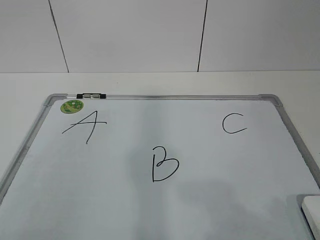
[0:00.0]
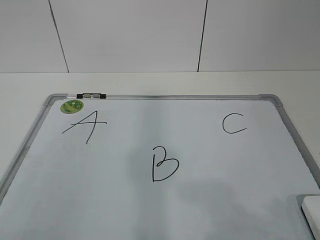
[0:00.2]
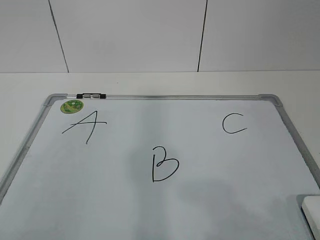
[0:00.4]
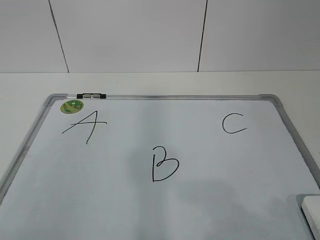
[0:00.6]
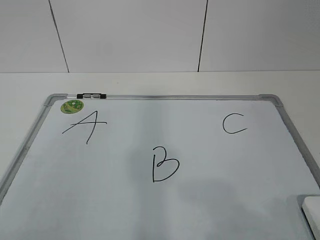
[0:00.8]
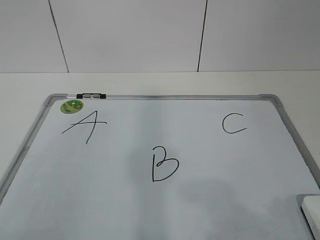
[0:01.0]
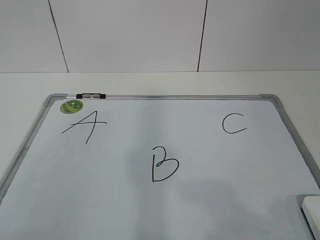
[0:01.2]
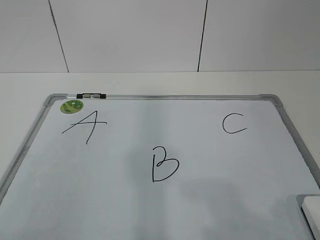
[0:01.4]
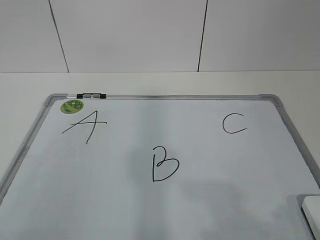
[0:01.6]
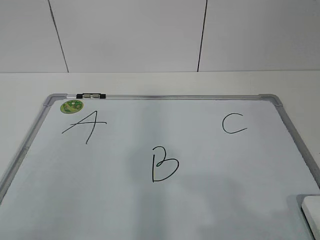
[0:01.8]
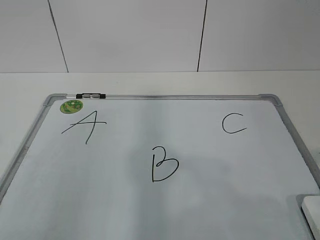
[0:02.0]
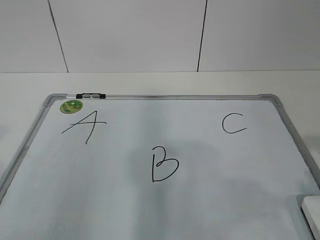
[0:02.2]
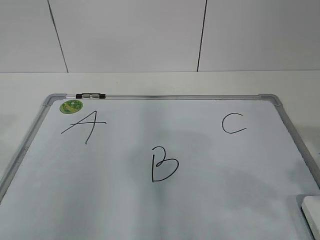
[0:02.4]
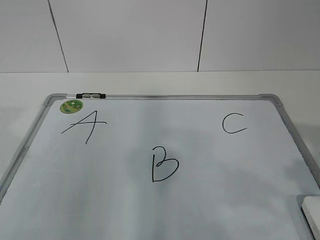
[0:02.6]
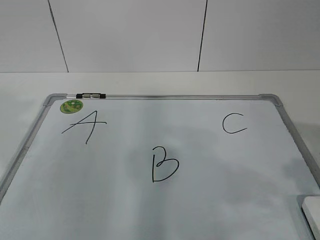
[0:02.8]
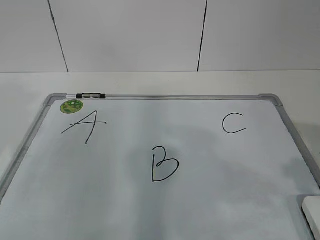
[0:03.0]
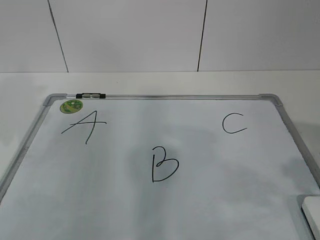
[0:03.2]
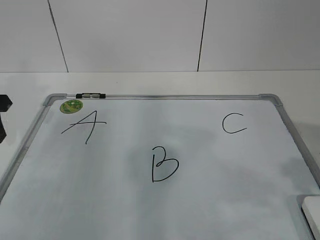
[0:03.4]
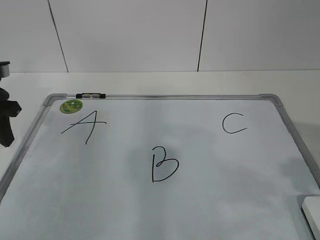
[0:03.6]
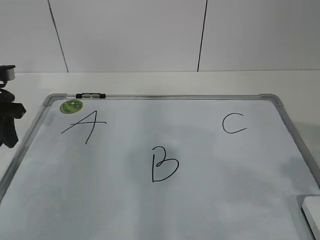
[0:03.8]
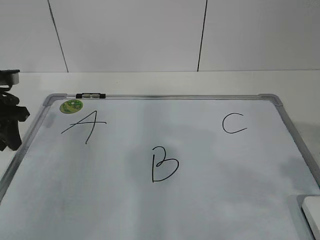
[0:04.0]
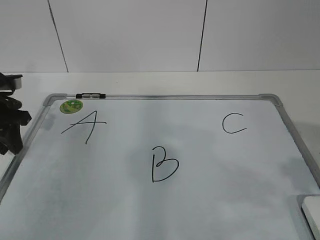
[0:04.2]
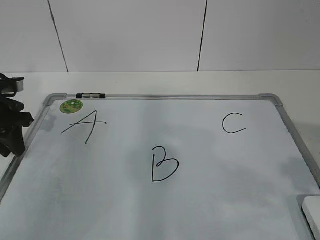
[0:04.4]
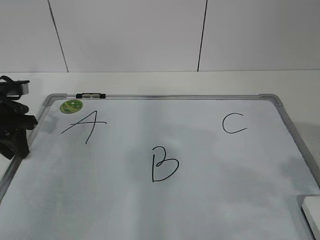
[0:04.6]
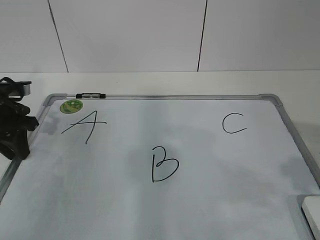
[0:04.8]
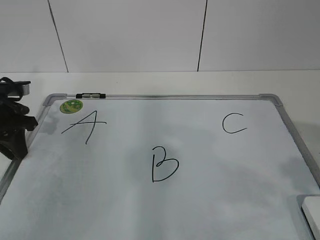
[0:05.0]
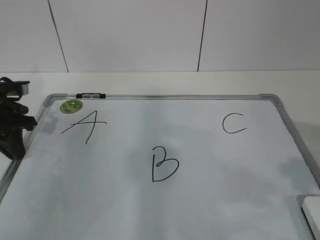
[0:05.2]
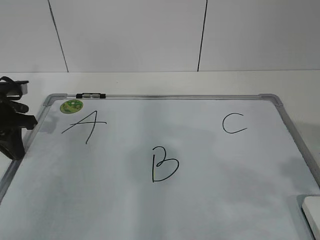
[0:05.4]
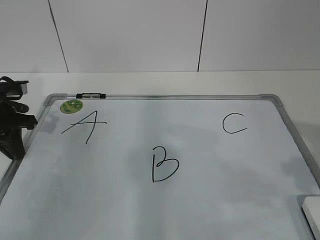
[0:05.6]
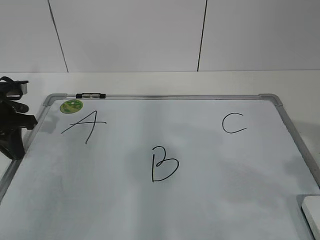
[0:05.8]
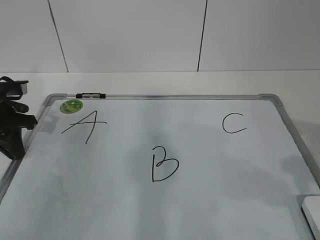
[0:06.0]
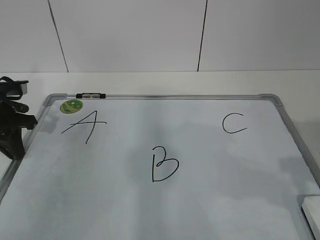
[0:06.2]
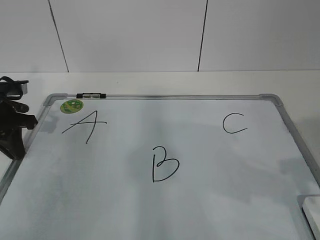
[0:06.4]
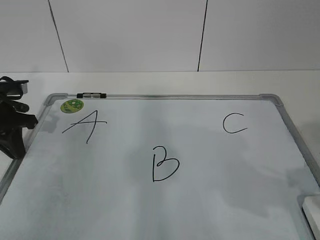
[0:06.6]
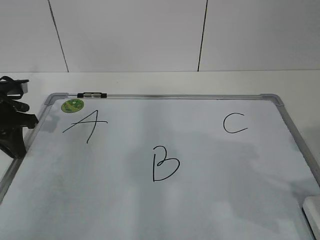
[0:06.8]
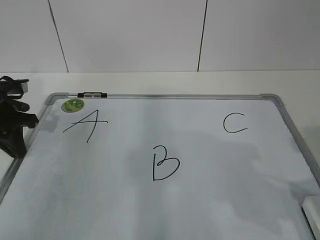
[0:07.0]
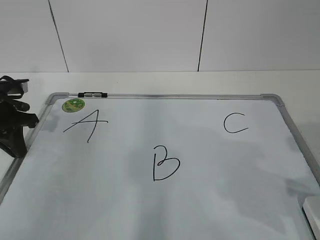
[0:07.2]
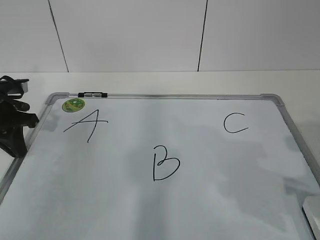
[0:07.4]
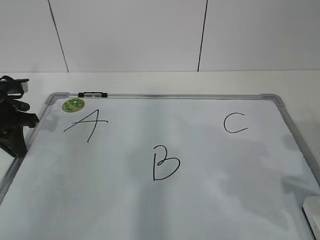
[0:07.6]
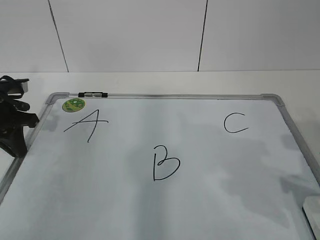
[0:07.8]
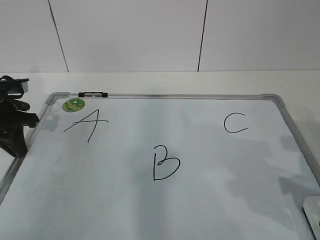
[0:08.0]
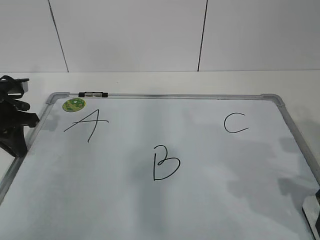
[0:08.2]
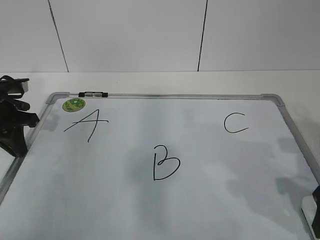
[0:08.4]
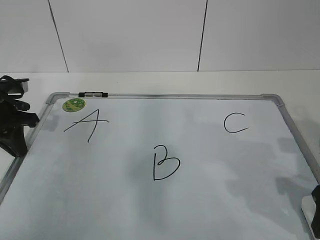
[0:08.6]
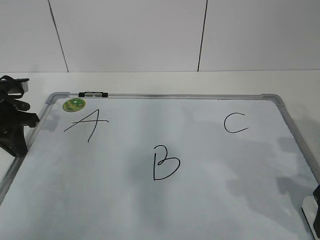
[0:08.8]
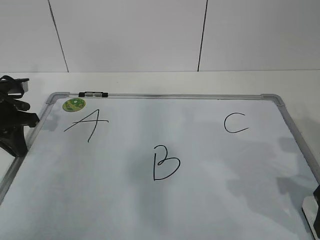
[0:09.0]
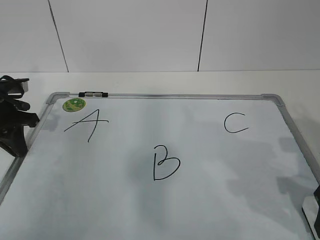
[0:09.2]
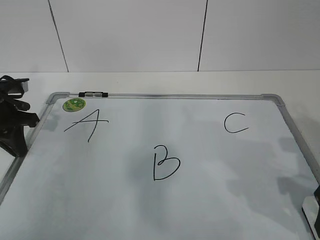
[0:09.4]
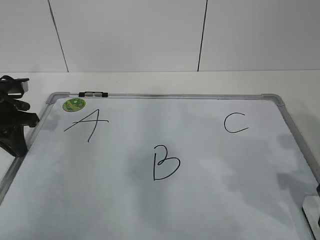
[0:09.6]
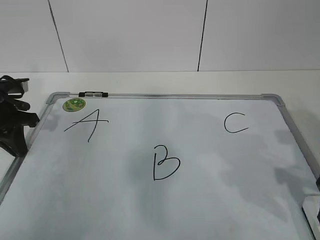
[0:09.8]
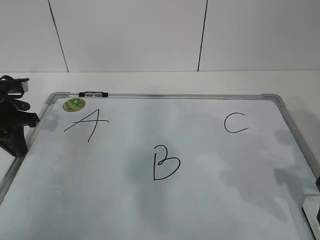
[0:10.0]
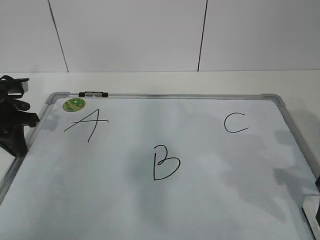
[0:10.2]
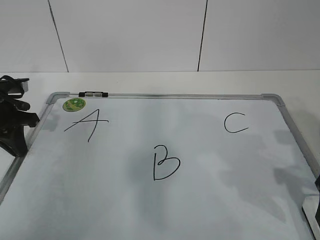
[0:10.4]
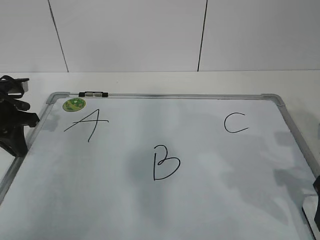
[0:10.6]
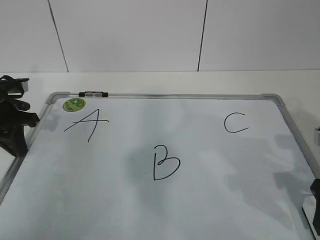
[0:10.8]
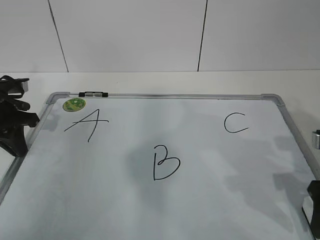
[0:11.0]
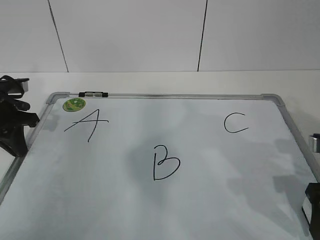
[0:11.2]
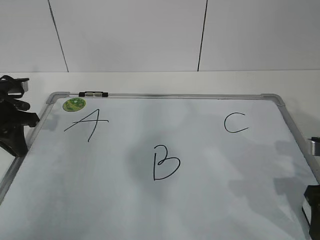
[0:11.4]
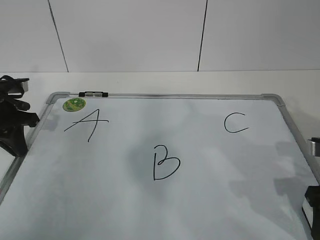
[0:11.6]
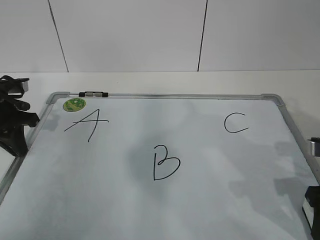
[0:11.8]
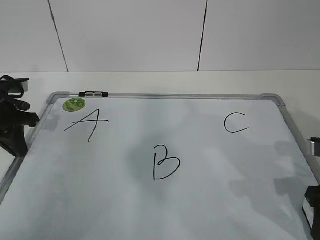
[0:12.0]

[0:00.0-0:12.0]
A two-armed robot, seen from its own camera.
Task of the whole recording: pick up the eraser on the blackboard and erase the letter "B".
Step, 0:00.0 to 0:04.2: Hold the drawing board steady with your left hand.
0:01.6 to 0:03.0: The left gripper goes about 25 cm forward; the right gripper is displaced forward by about 10 cm.
0:03.0 to 0:04.4: The left gripper goes some 15 cm forward and downward.
0:04.4 to 0:06.0: The left gripper closes its fingers.
0:06.0 to 0:07.6: The right gripper travels downward and forward by approximately 10 cm.
0:10.4 to 0:12.0: The right gripper closes.

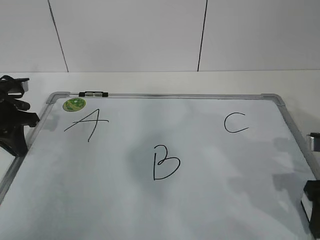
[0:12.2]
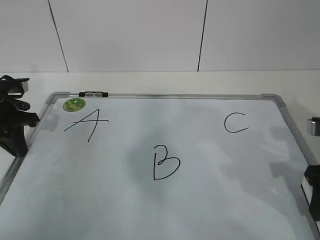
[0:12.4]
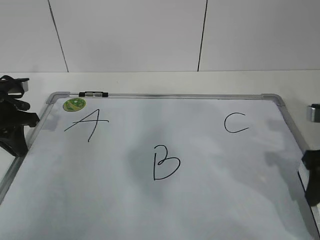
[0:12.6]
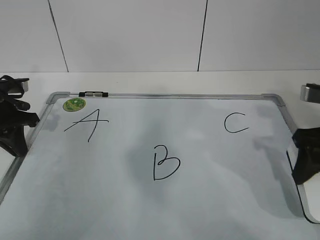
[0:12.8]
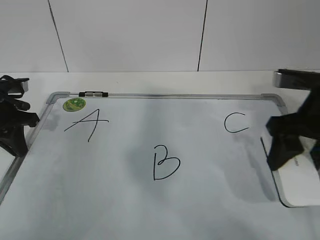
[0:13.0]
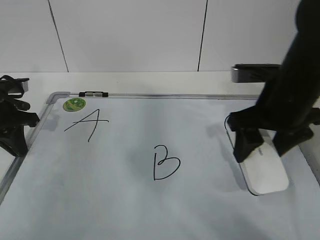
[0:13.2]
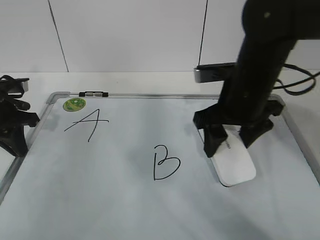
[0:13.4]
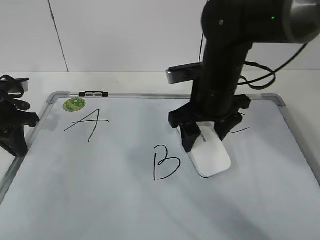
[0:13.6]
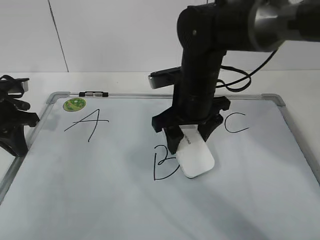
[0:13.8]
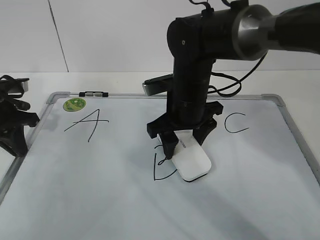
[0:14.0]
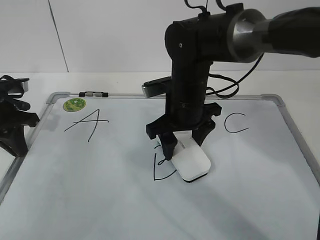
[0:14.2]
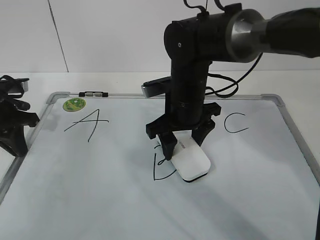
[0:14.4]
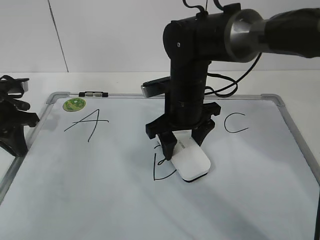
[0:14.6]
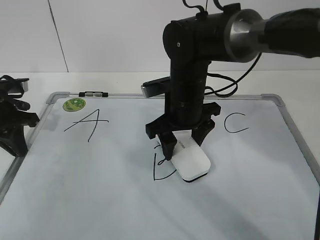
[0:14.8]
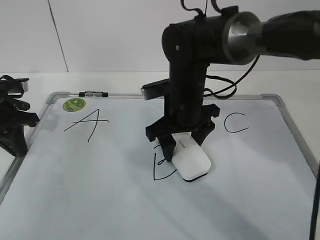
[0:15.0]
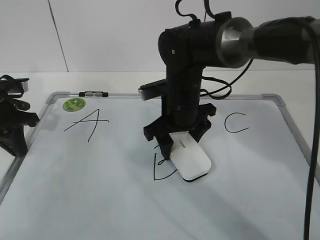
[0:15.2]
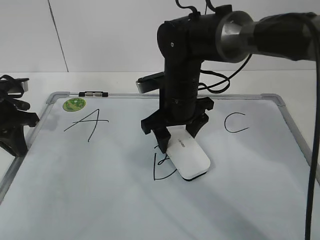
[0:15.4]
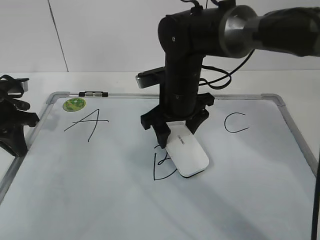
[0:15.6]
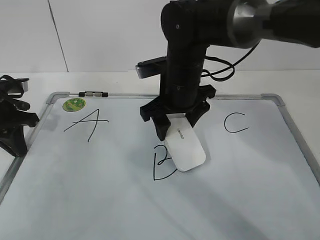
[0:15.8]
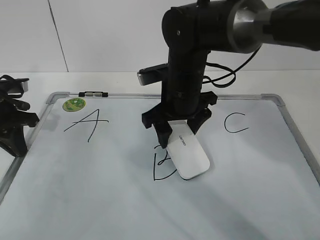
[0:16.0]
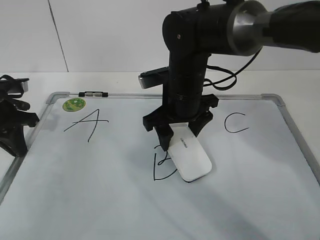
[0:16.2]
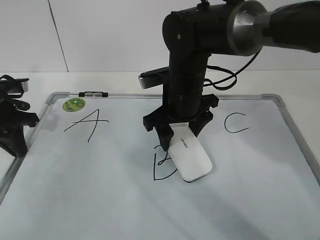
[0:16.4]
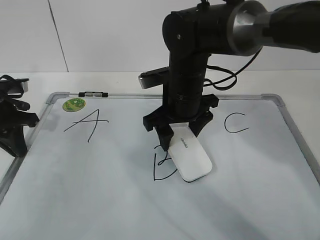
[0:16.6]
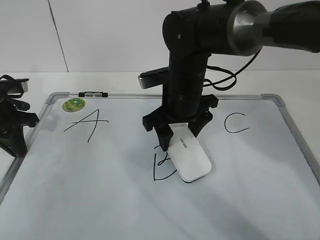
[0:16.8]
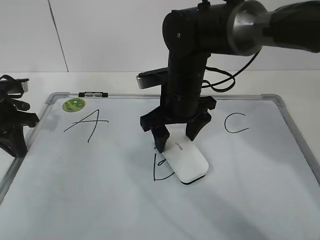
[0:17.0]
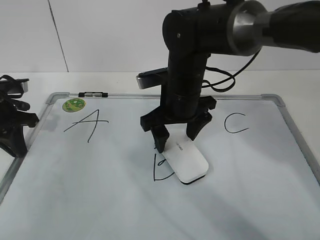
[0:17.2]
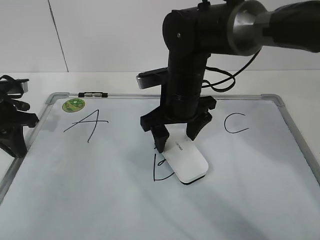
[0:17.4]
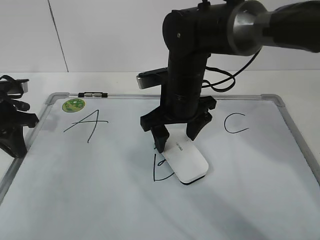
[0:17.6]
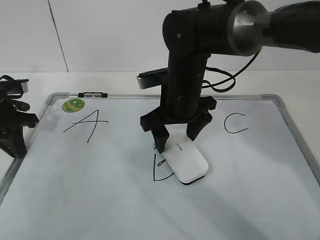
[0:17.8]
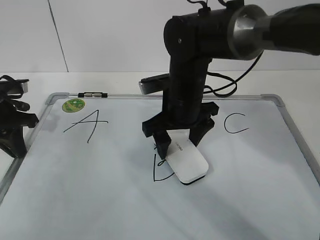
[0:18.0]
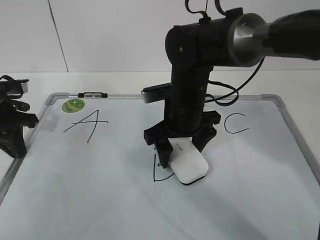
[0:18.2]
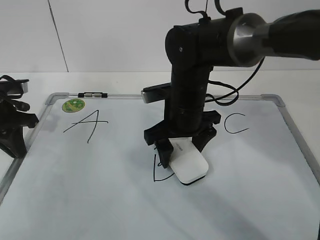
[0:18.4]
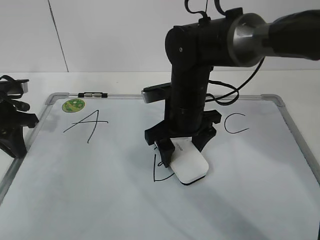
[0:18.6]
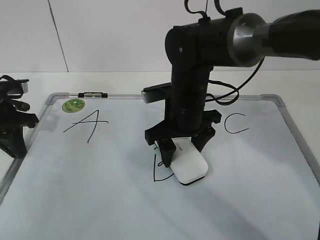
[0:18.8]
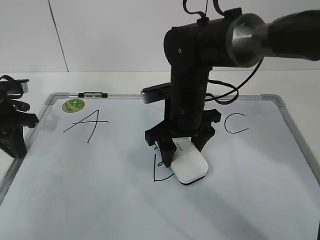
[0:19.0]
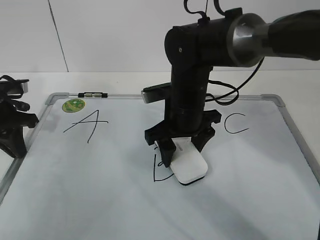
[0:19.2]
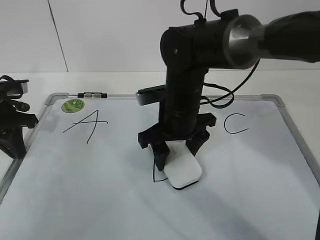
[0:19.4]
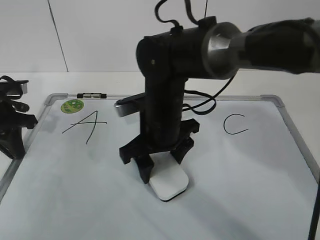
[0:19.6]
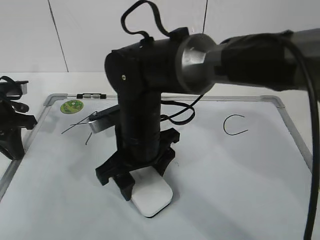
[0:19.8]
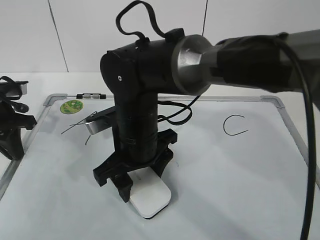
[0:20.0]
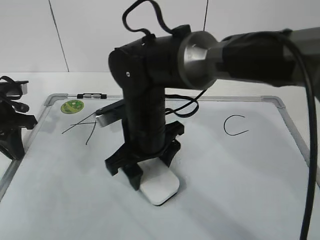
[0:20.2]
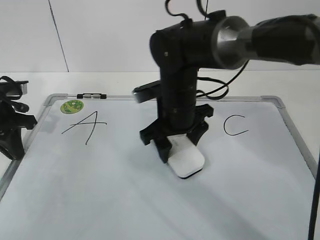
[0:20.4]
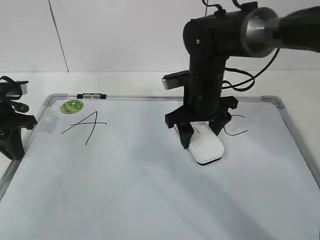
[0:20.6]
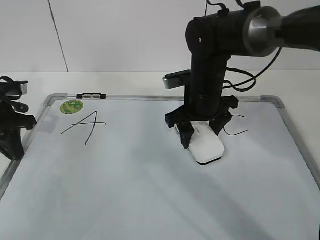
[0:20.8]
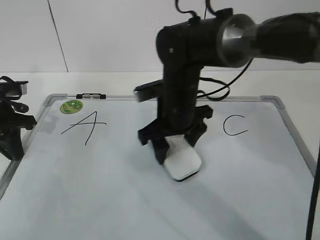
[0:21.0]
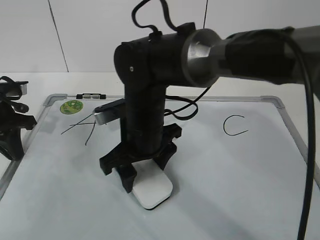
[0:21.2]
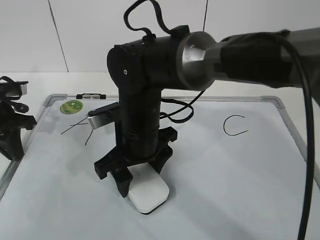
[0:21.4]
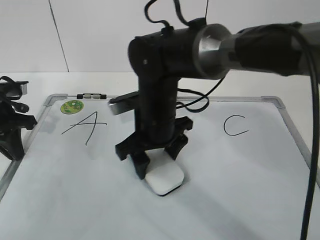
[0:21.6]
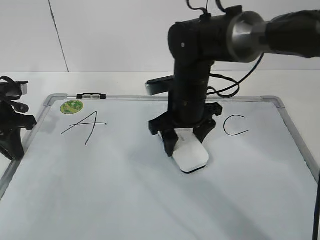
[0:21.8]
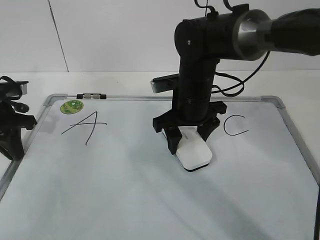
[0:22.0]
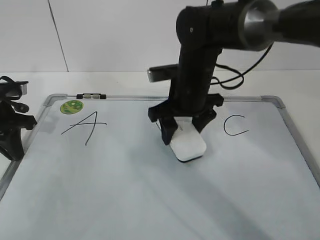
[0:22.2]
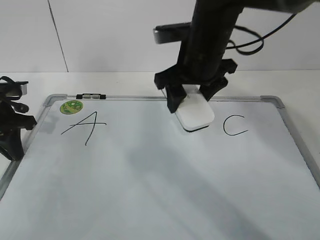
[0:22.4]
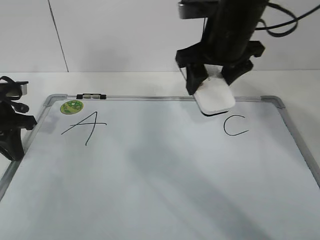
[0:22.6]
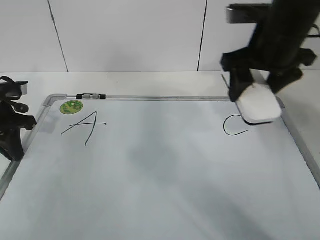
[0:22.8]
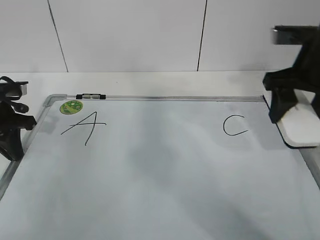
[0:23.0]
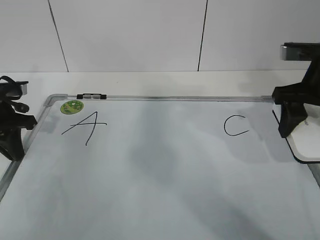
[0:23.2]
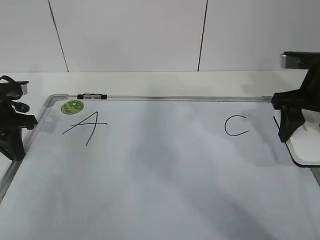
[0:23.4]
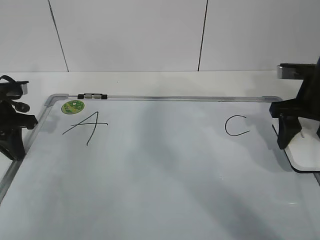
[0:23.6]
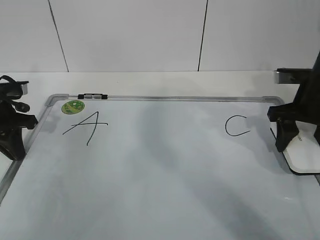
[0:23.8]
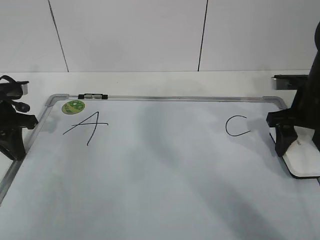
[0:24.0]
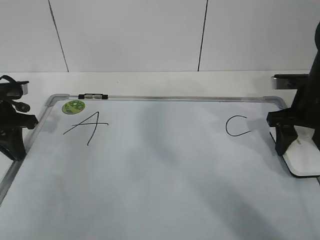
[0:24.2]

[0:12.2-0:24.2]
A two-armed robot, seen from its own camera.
Task of the whole recording: pick up the eraser on the blackboard and erase the letter "B".
Step, 0:12.2 to 0:18.2: Erase the letter B with your right hand.
Step, 0:18.4 to 0:20.8: Put down the eraser with your right hand.
0:12.2 to 0:13.8: The right gripper shifts roughly 25 cm to the left and forward.
0:13.8 to 0:16.6: There are only small adjustments of the grippers.
0:16.6 to 0:18.2: The right gripper opens up.
0:18.2 to 0:19.8: The right gripper heads to the left and backward, covering approximately 10 cm, and closes its fingers.
0:19.8 to 0:21.2: The right gripper goes to the right and returns, some 10 cm each way.
0:21.2 to 0:22.6: The right gripper goes roughly 20 cm upward, to the right and forward.
0:22.6 to 0:24.2: The right gripper shifts about 20 cm to the right and downward.
